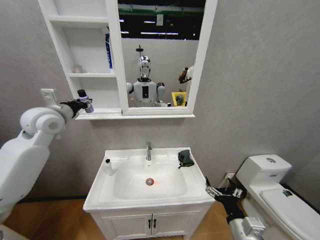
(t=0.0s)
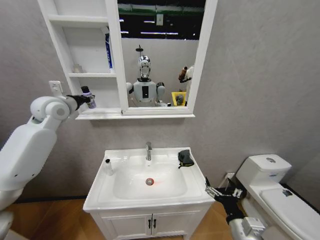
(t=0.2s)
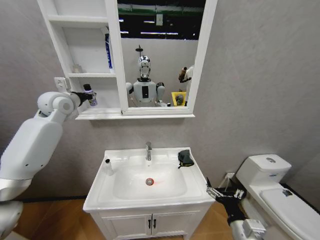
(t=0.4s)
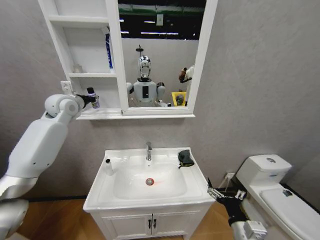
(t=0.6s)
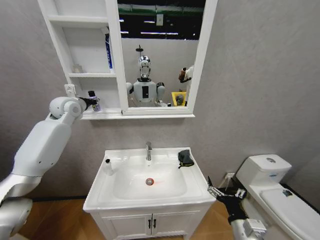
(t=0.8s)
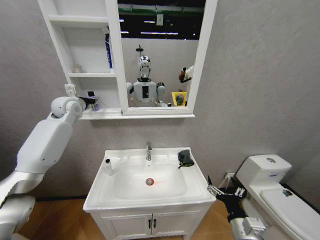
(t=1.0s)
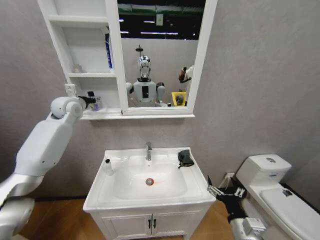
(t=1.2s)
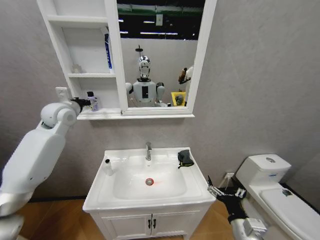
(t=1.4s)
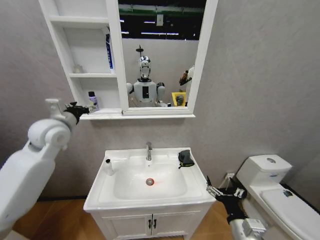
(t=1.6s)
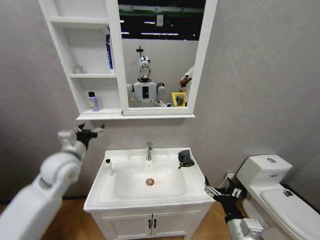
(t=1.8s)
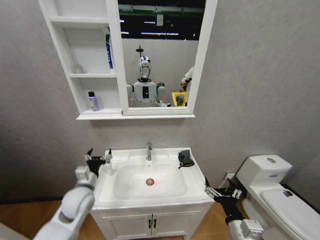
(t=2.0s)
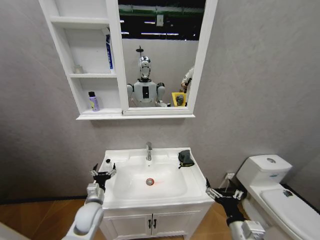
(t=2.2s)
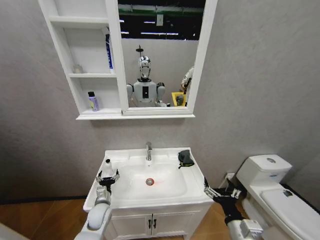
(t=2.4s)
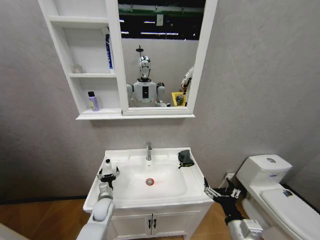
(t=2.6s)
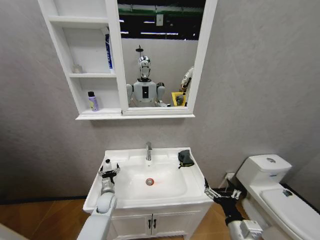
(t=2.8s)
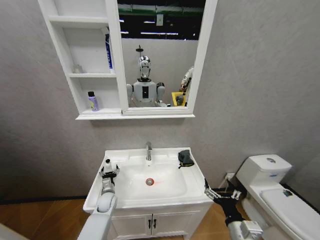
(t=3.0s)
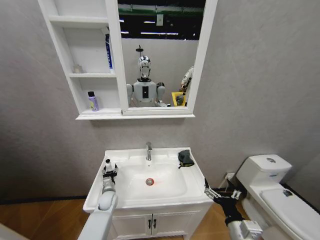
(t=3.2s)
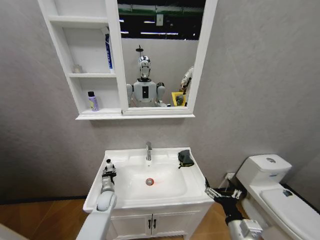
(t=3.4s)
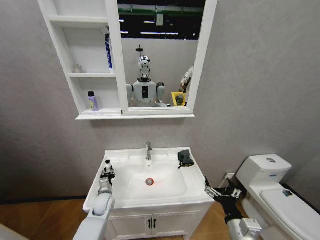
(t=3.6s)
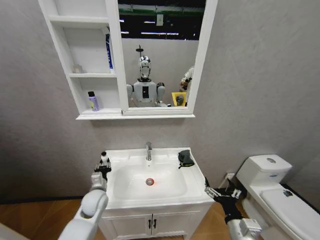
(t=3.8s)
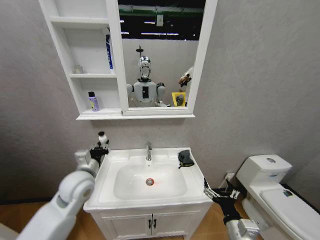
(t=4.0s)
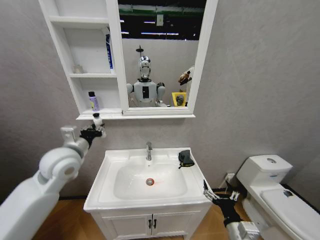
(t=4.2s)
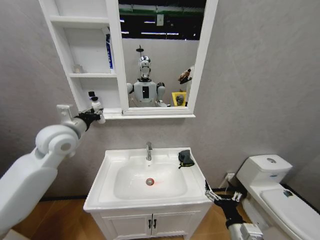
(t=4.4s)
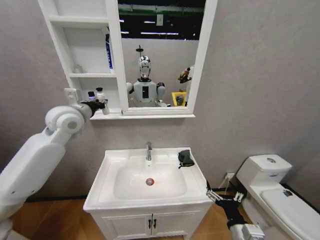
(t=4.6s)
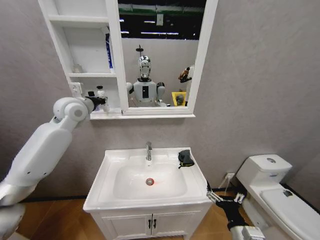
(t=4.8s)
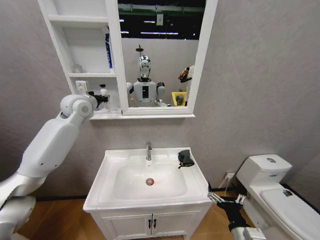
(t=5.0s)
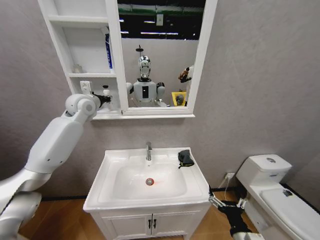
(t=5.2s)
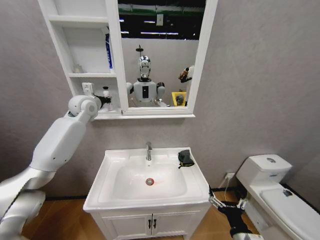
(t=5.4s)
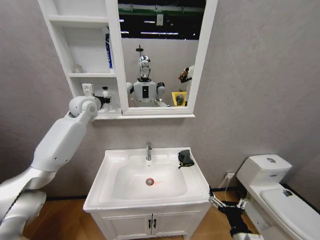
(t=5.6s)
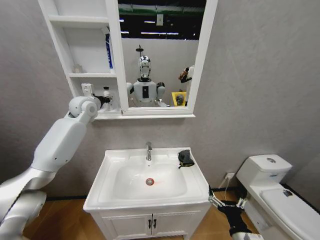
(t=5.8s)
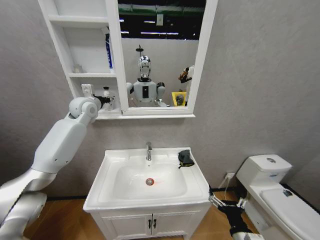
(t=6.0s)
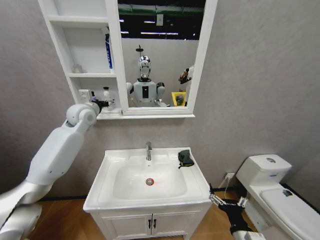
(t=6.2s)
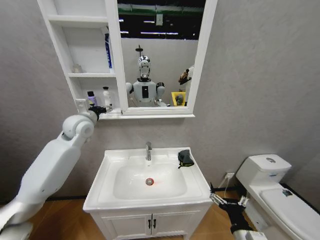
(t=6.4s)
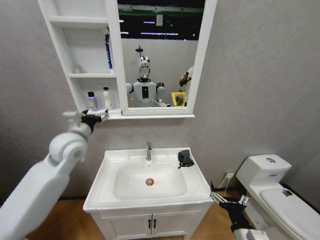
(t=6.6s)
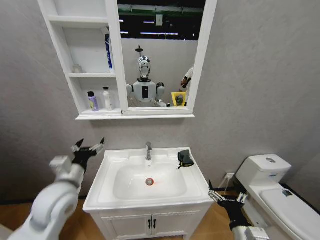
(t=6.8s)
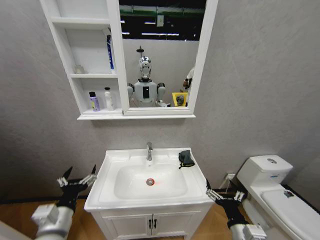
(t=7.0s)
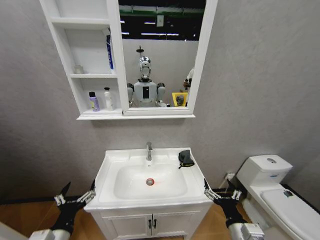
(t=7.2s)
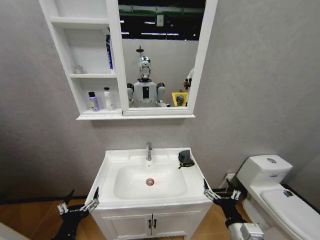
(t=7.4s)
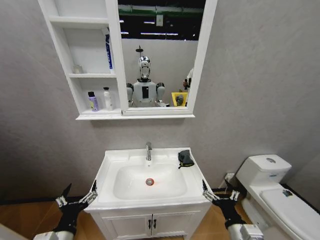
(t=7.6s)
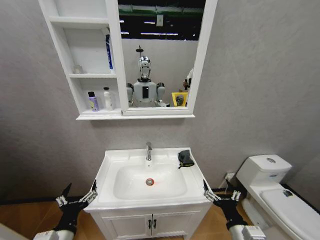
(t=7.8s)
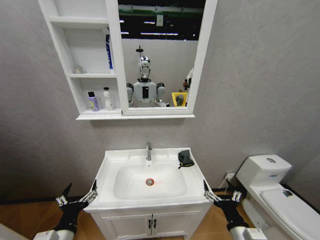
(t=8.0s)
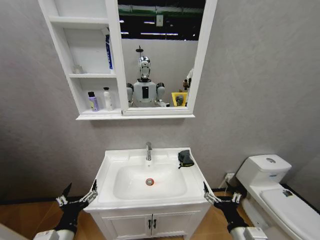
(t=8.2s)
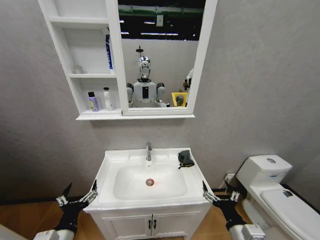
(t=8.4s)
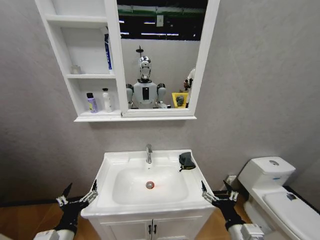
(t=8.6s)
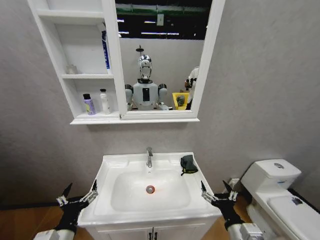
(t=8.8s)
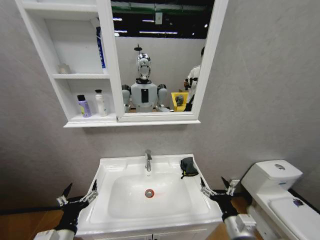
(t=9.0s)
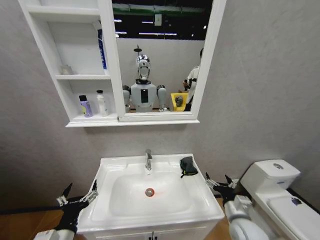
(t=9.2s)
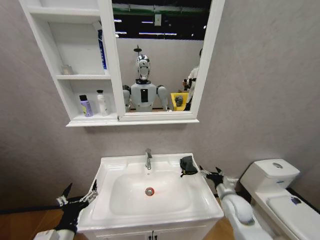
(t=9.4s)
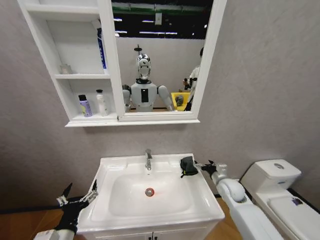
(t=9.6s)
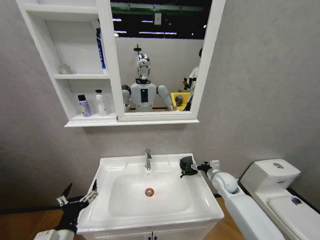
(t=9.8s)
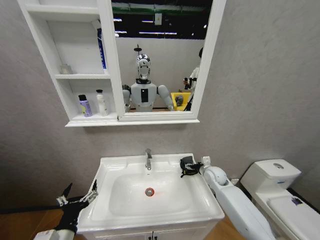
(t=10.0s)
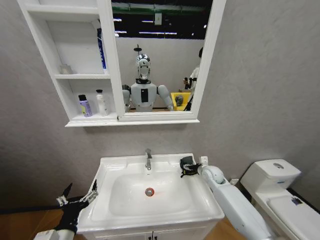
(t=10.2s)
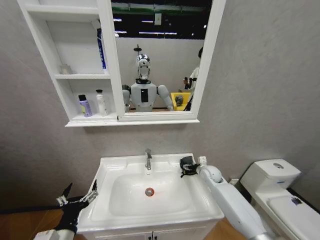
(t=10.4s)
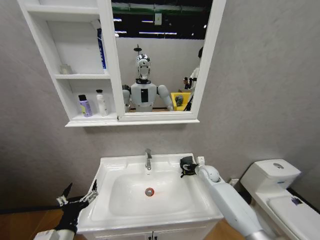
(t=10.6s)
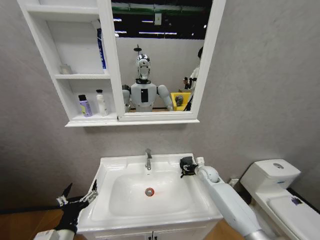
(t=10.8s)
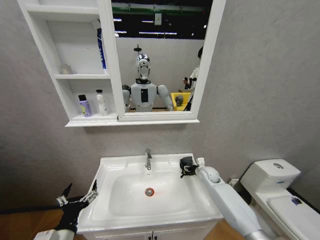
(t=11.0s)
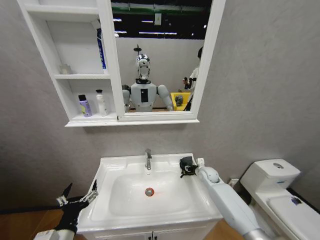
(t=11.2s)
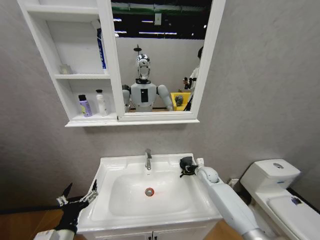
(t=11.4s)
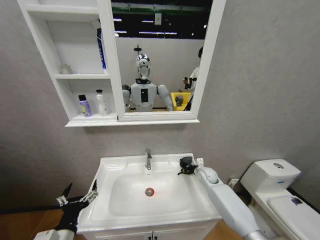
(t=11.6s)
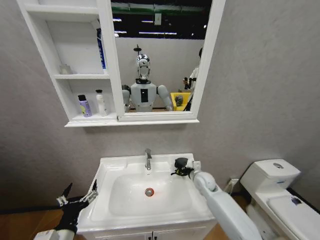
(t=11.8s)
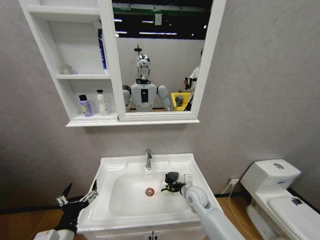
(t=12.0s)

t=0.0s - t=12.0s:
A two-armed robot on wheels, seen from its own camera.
Task of the whole recording: Move facial cleanser and shampoo from washbasin to cabinet, then wipe washbasin with towel.
t=0.0s - t=1.6s: The left gripper reaches some 10 cm forward, then returns, and opens up.
t=1.6s - t=3.0s: The left gripper shifts roughly 40 cm downward.
t=3.0s - t=4.4s: The left gripper goes some 40 cm upward, and closes.
t=4.4s - t=6.0s: The left gripper shifts roughly 15 cm forward, and opens its fingers.
t=6.0s - t=7.6s: The left gripper goes approximately 50 cm backward and downward.
t=9.0s - t=10.4s: The right gripper heads forward, covering approximately 30 cm.
t=10.4s - t=12.0s: The right gripper moves to the left and backward, roughly 15 cm, and closes.

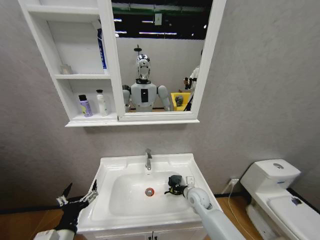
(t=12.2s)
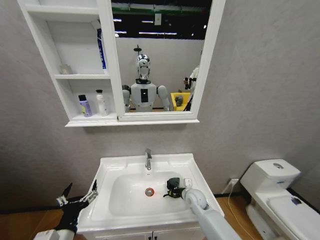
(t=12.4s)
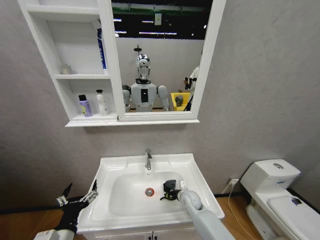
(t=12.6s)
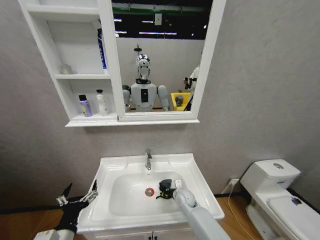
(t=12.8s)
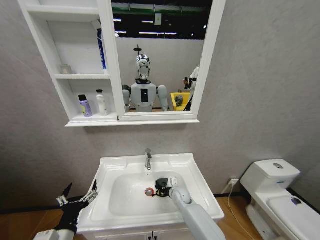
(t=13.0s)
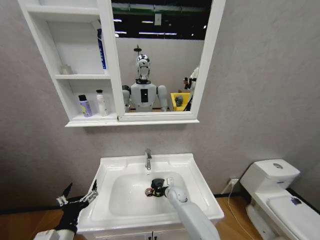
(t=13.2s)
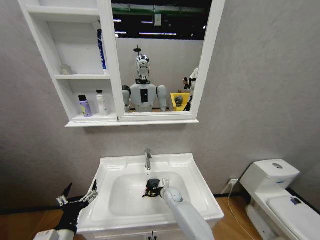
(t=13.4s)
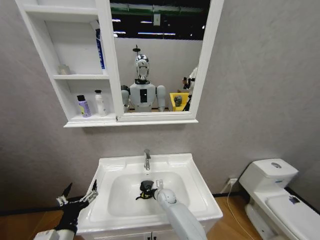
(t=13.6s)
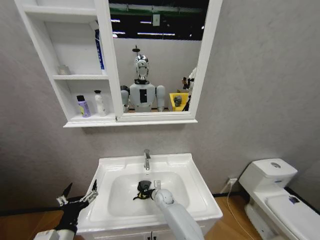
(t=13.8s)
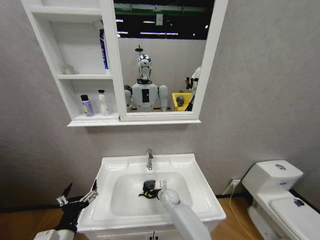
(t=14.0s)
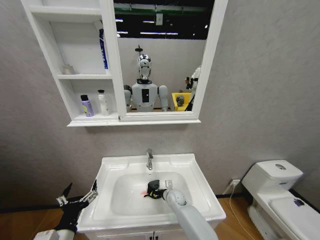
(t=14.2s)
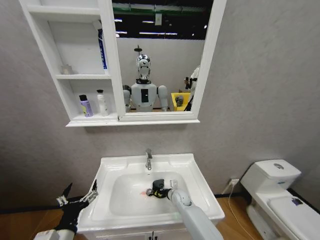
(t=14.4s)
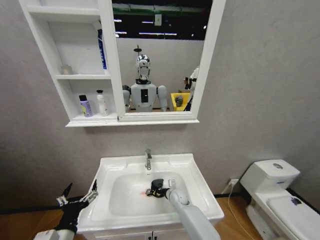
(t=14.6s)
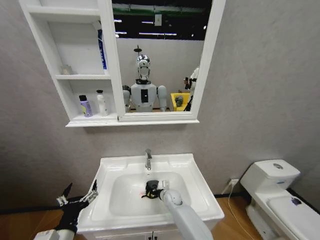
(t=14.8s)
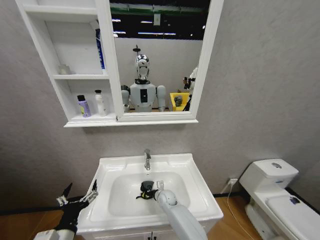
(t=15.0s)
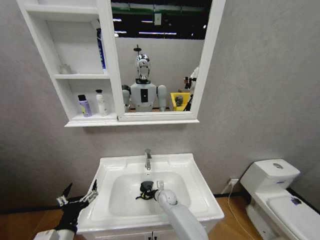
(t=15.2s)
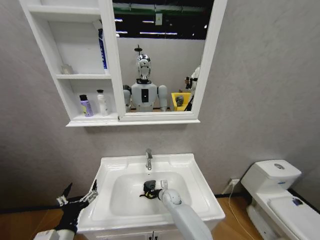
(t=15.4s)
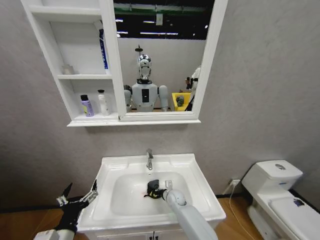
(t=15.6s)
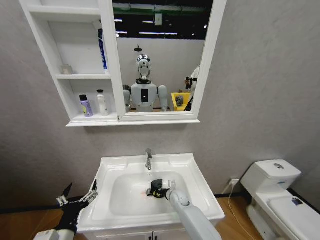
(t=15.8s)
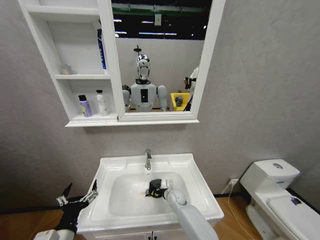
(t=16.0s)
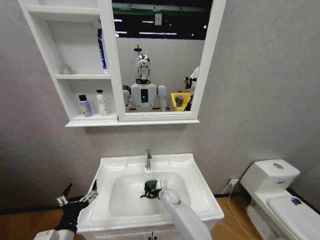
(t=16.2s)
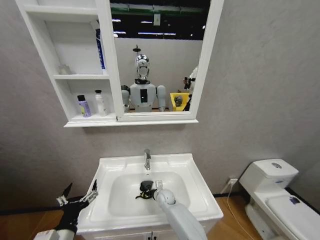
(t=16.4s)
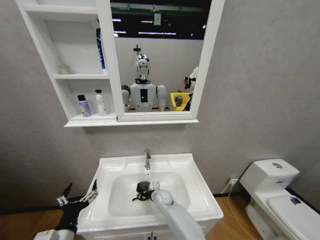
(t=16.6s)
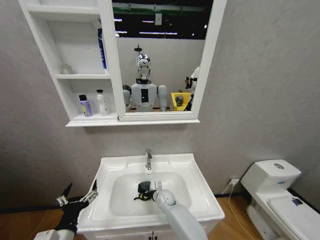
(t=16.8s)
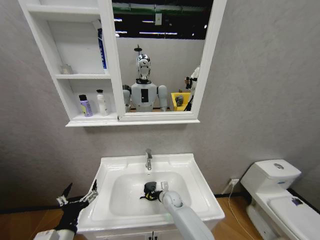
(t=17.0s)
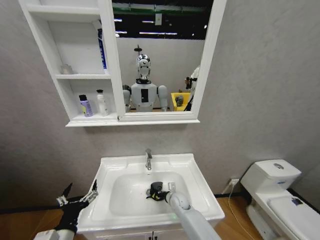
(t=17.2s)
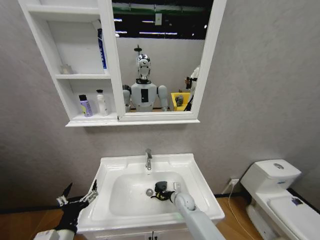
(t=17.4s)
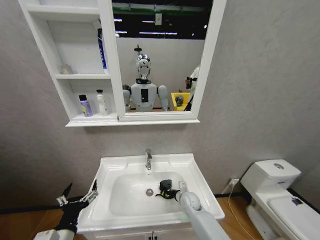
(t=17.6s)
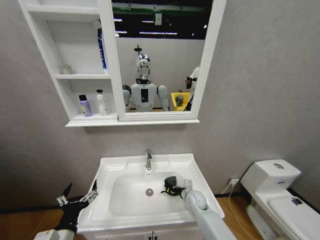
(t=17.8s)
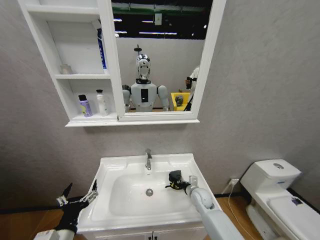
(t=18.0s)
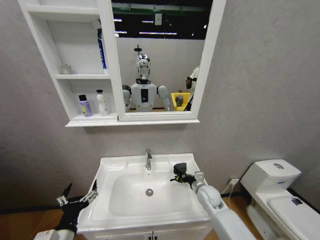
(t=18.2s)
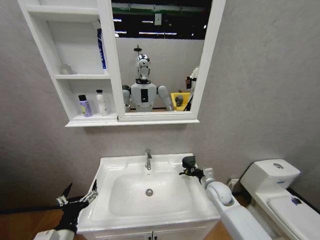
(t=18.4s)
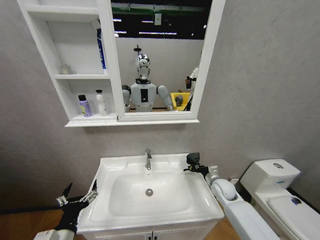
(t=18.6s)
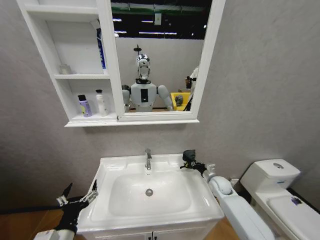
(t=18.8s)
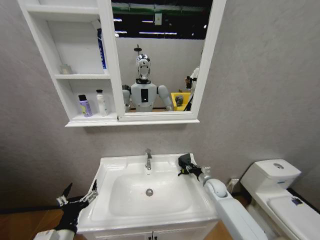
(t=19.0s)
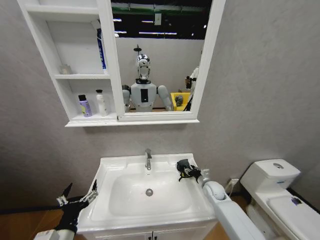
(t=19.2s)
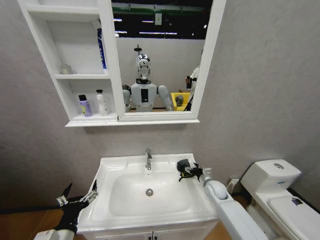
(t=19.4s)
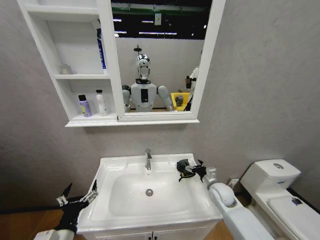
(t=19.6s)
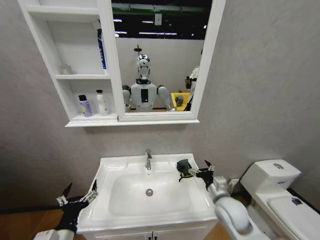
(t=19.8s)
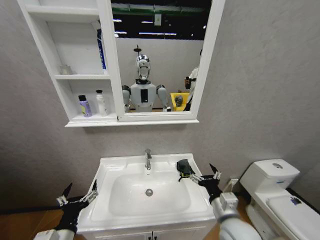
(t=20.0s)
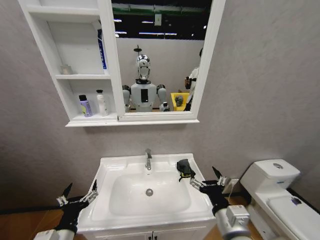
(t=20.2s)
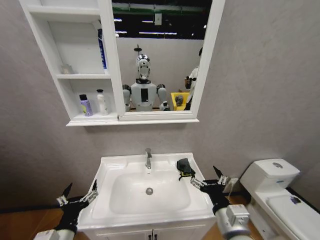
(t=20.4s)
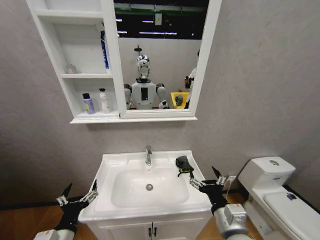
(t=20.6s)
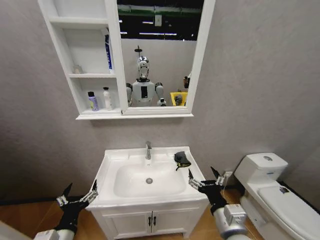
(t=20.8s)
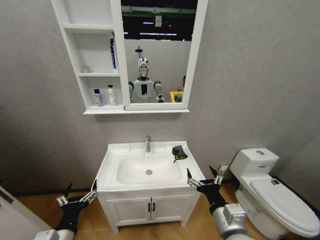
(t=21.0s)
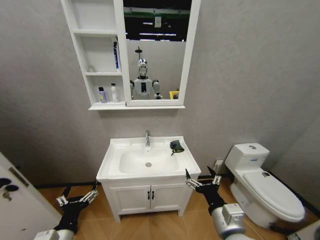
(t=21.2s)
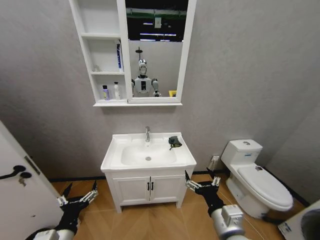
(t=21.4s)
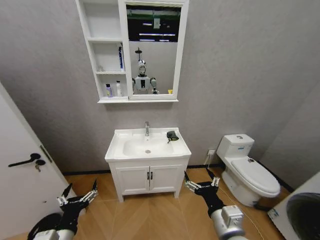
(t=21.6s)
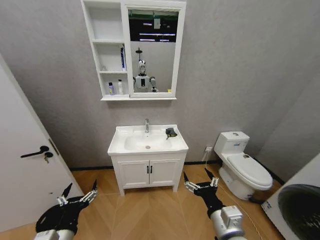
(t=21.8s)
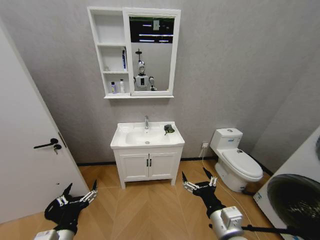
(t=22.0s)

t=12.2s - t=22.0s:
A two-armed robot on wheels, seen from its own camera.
Task of the whole recording: Move facial cleanser and shampoo from washbasin to cabinet, then wipe washbasin with towel.
t=12.2s - t=13.6s: The right gripper goes approximately 20 cm to the left, downward and forward.
t=16.4s - t=17.8s: The right gripper goes some 15 cm to the right.
t=17.8s - t=19.2s: The right gripper is displaced to the right by about 10 cm, and opens its fingers.
t=19.2s - t=20.6s: The right gripper travels backward, upward and to the left by roughly 35 cm, and opens its fingers.
